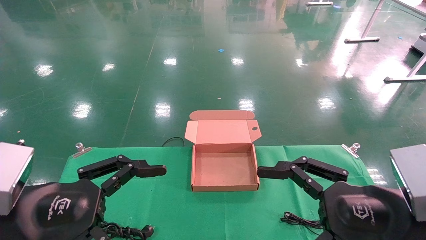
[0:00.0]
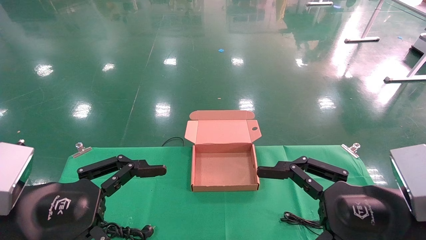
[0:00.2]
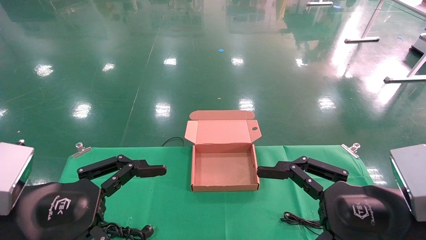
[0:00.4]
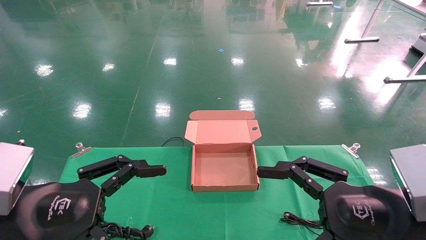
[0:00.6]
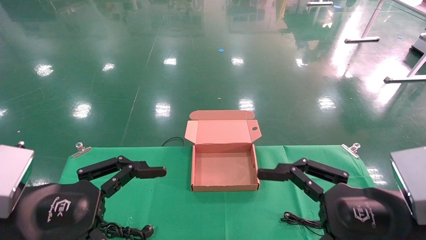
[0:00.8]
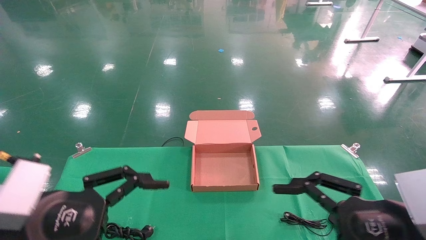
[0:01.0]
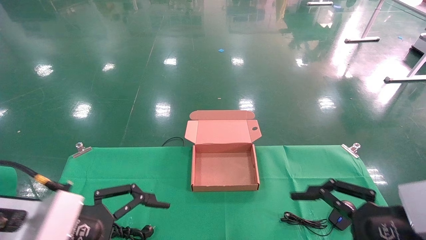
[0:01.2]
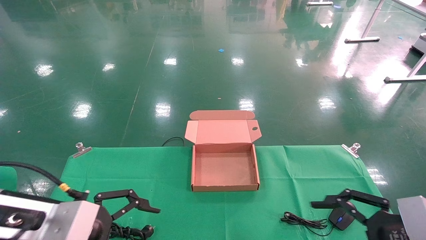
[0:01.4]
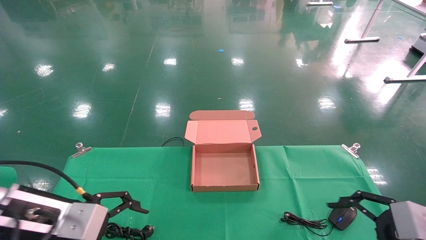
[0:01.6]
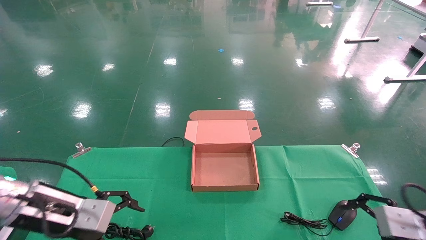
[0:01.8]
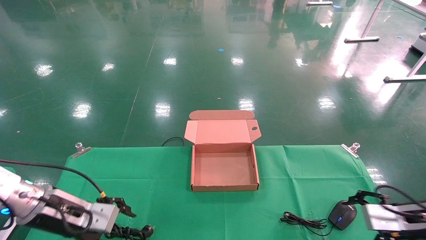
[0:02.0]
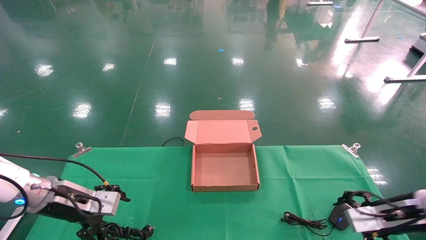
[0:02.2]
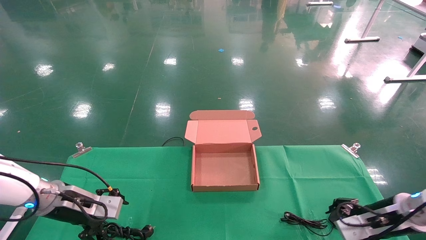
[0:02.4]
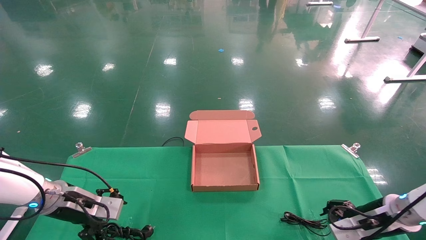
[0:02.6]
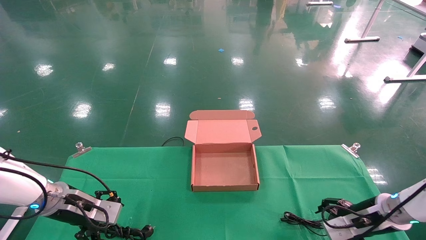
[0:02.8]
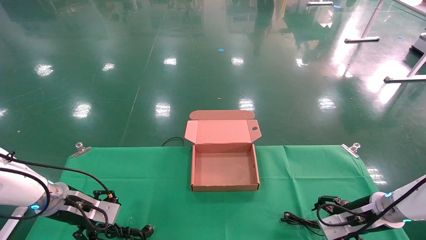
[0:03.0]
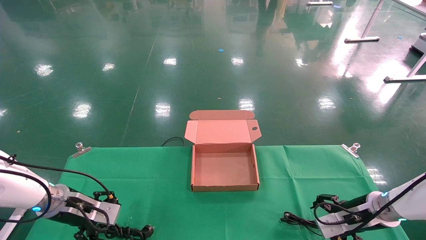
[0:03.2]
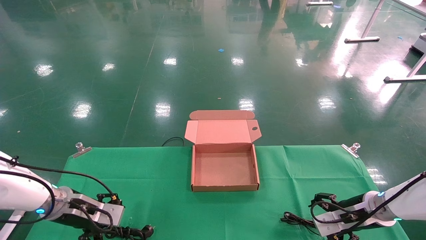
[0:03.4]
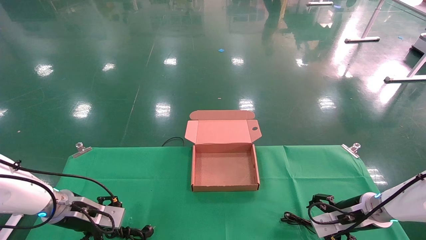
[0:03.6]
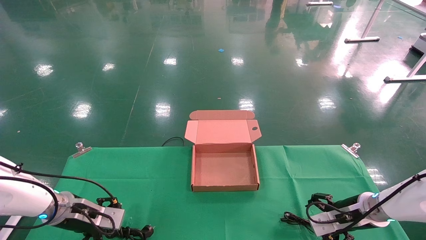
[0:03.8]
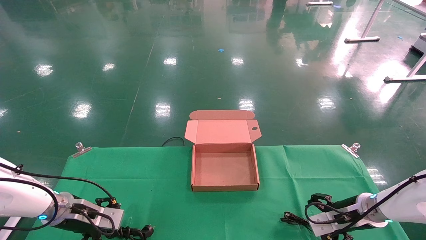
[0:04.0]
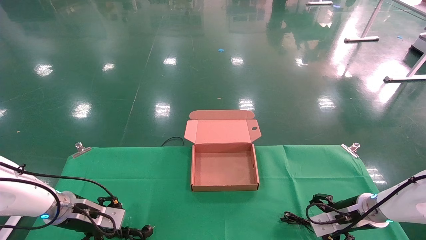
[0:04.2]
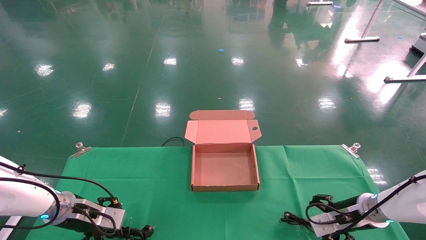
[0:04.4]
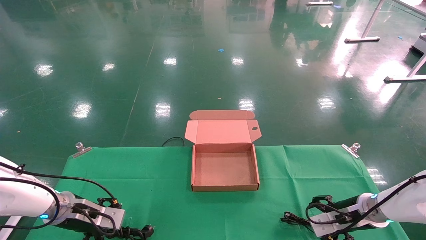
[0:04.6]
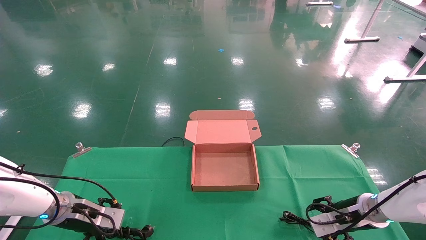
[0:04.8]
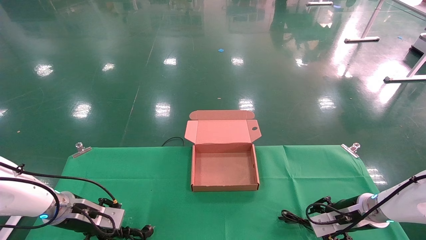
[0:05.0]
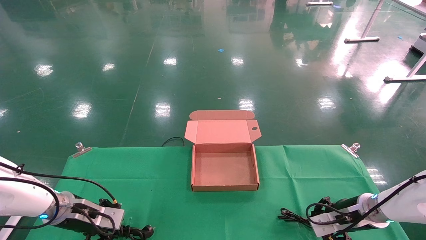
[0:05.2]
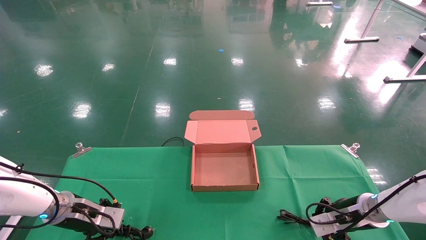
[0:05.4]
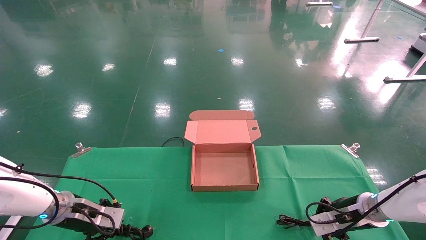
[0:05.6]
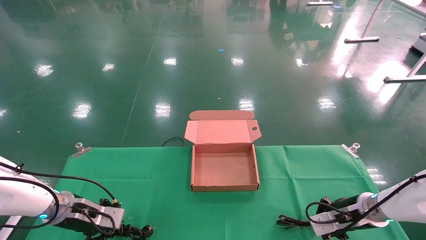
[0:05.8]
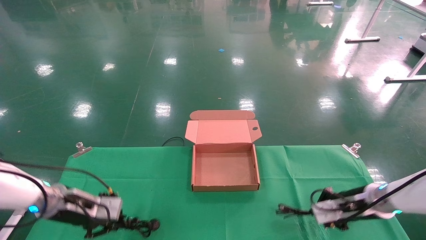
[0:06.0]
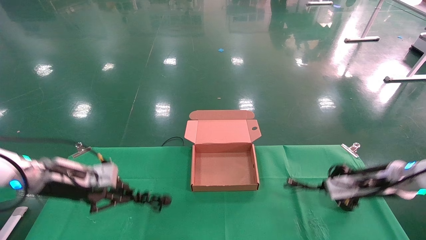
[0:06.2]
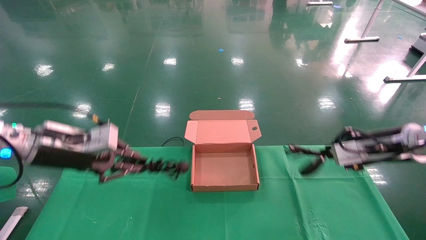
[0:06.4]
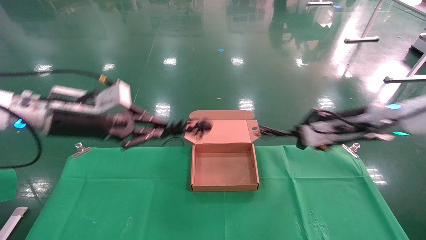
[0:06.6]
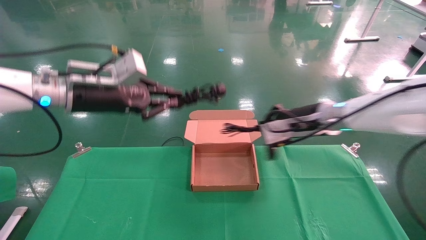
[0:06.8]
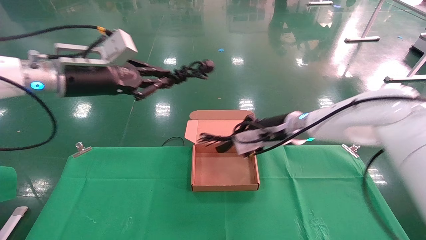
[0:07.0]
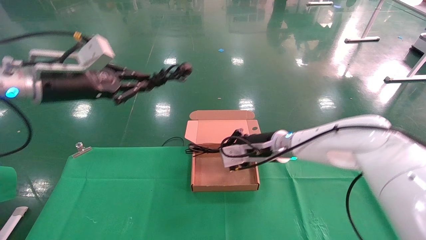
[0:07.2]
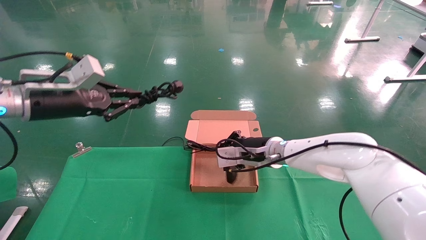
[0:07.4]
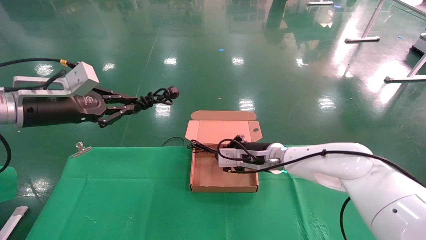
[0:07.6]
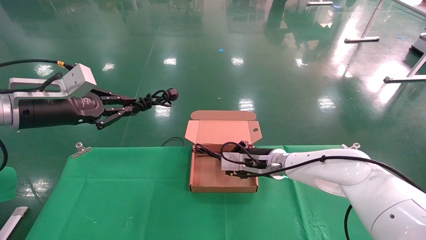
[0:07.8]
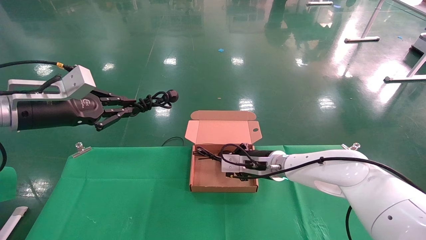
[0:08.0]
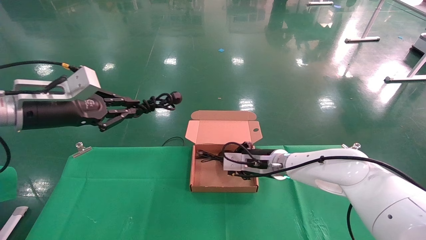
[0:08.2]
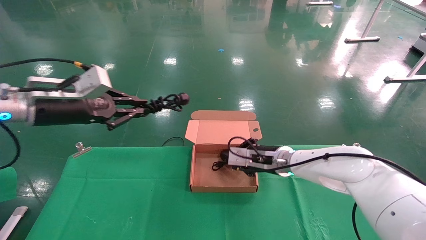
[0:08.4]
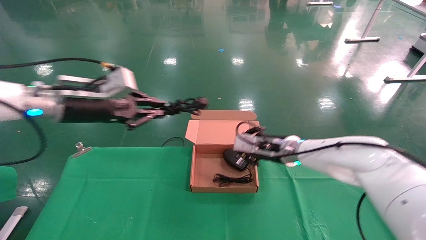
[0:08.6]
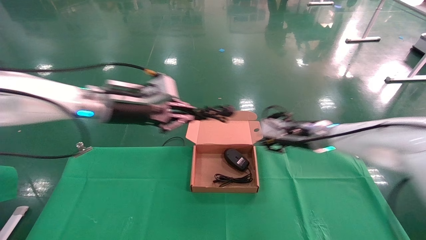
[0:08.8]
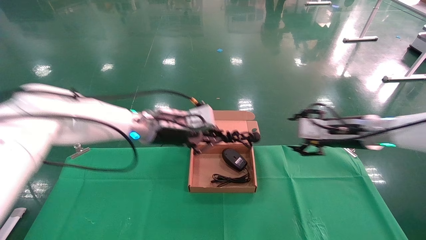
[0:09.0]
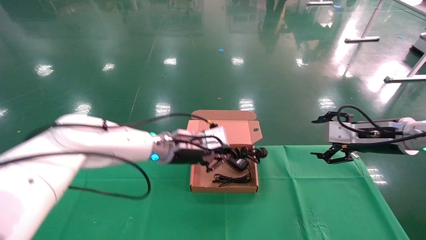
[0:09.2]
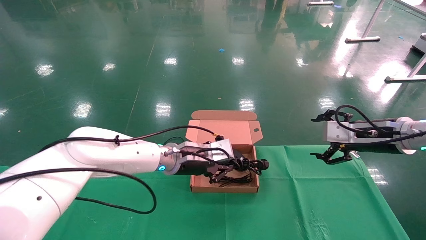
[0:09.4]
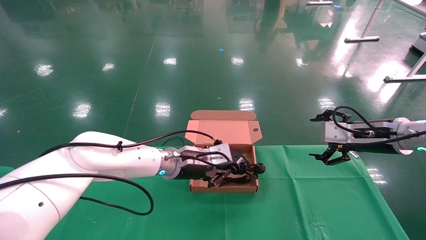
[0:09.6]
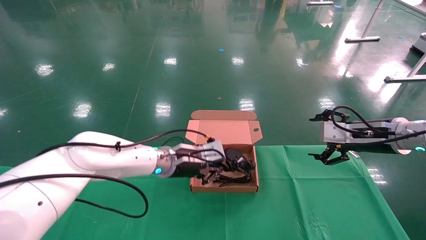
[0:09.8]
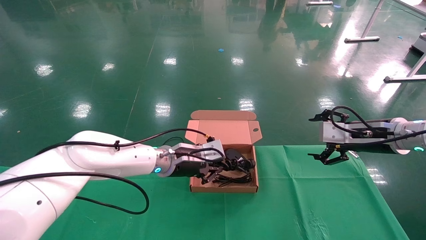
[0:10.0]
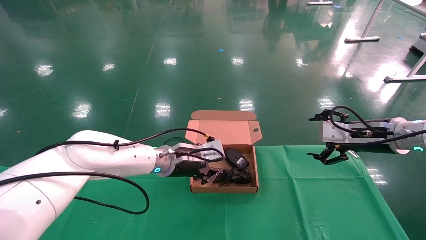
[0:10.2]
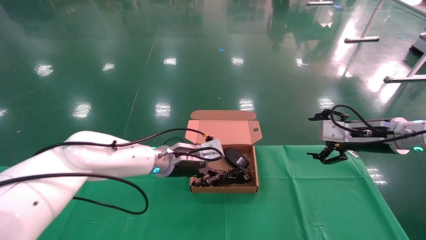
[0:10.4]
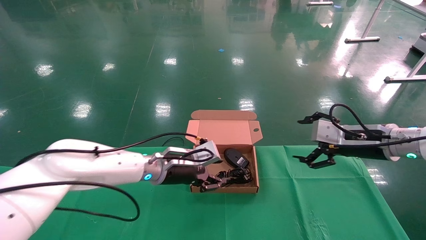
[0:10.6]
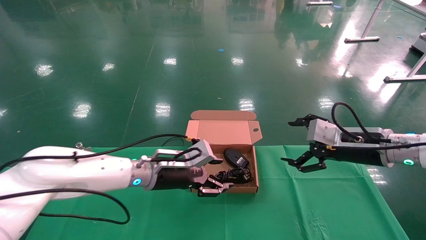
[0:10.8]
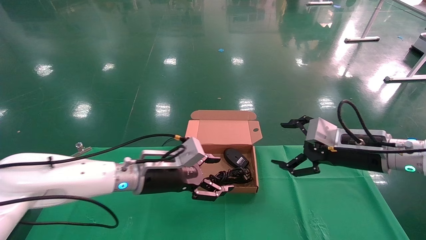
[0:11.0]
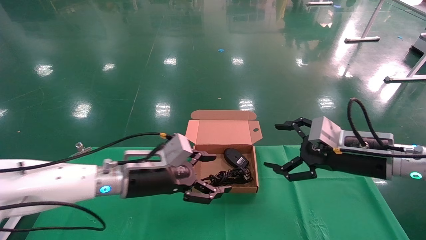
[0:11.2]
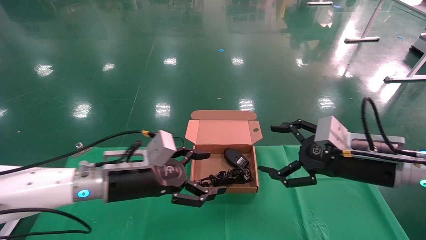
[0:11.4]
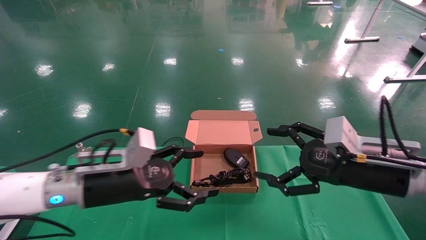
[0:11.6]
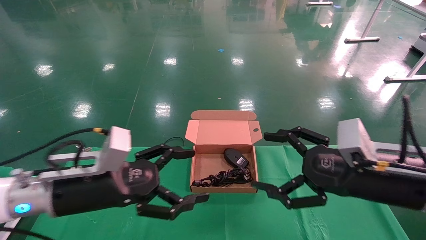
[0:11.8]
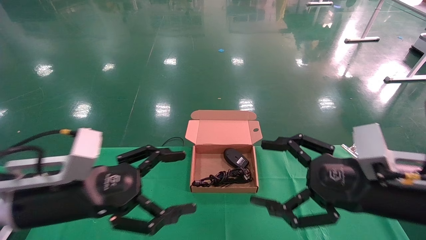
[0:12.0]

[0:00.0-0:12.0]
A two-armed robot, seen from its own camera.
Step, 0:01.2 to 0:05.6: Grab and lift both the mouse and power cord from the accessory packaging area at the same time.
Step, 0:05.8 to 0:10.0: Place the mouse and power cord into the box.
0:00.0 to 0:01.6: The right gripper travels to the right, forward and downward by some 15 cm. Meanwhile the left gripper is displaced forward by roughly 10 cm.
0:01.6 to 0:03.0: The right gripper goes about 20 cm forward and downward, while the left gripper travels forward, downward and to the left by about 20 cm.
0:03.0 to 0:04.4: The grippers move only a little.
0:04.4 to 0:06.0: The left gripper moves upward, approximately 5 cm, and closes; the right gripper changes place by roughly 5 cm, and closes its fingers.
0:06.0 to 0:07.6: The right gripper is displaced to the left by roughly 25 cm; the left gripper travels upward by about 20 cm.
0:07.6 to 0:09.0: The left gripper travels to the right by some 20 cm. Meanwhile the right gripper is displaced to the right and upward by some 20 cm, and opens.
0:09.0 to 0:10.4: The right gripper opens up. The left gripper shifts some 10 cm downward.
0:10.4 to 0:12.0: The grippers both shift backward and to the left by some 20 cm. The left gripper opens up.

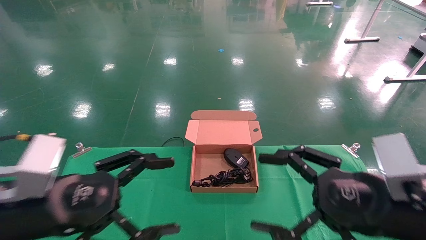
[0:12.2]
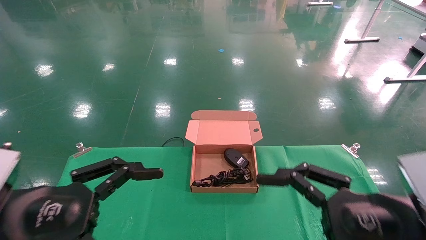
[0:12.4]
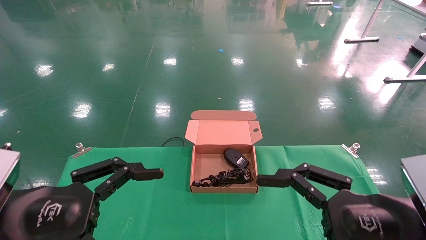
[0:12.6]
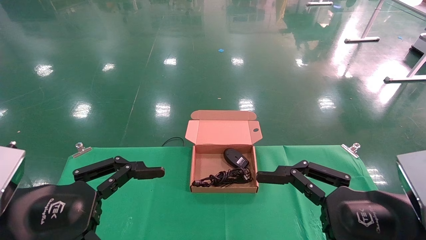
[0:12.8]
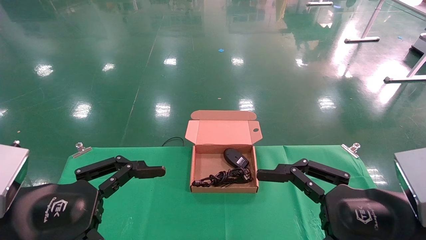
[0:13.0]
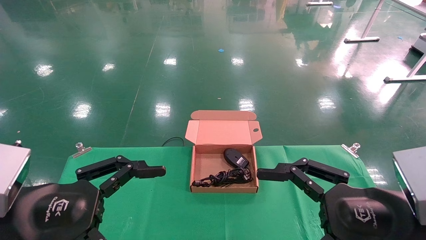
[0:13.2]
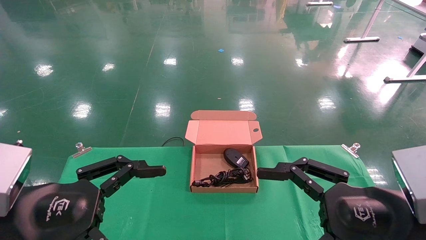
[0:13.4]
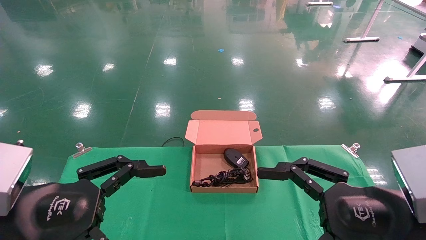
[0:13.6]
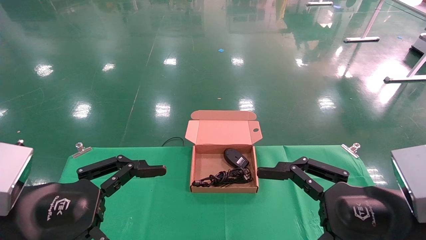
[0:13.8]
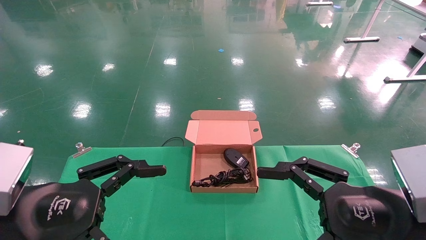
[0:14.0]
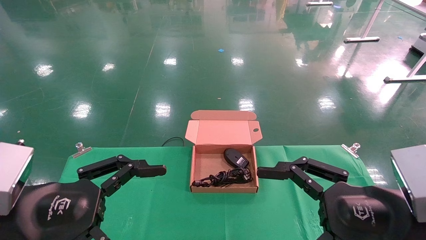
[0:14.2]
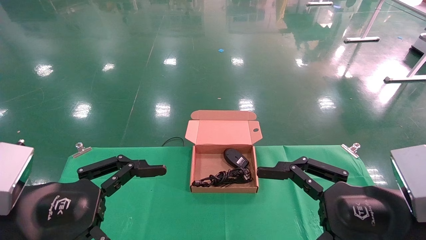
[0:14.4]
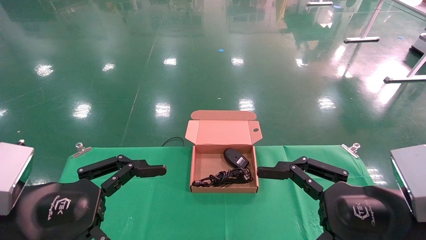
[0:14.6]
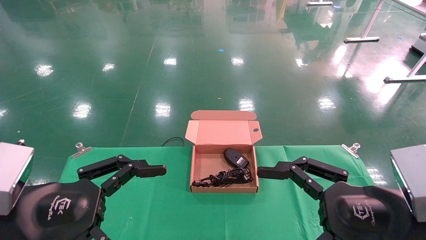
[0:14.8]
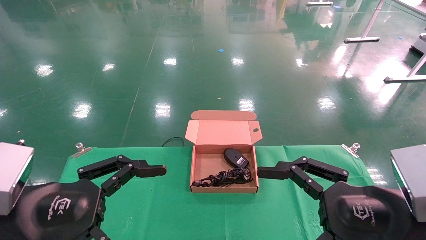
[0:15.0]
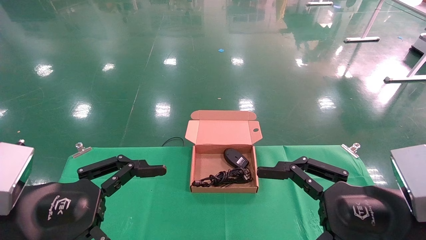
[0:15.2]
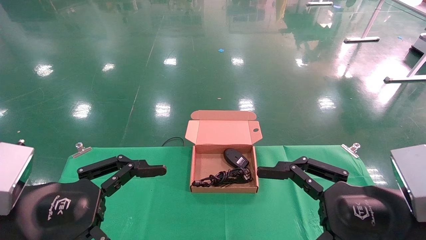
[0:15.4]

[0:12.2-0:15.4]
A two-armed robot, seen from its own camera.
0:12.2 to 0:13.8: There are only small adjustments of the grippers.
0:13.8 to 0:15.4: Both grippers stay put.
